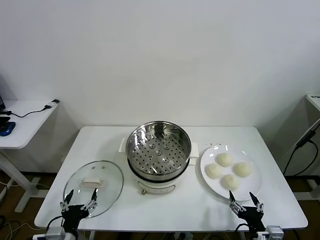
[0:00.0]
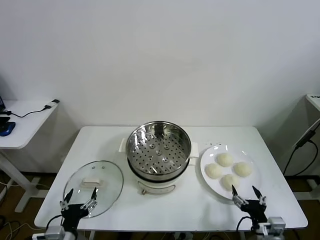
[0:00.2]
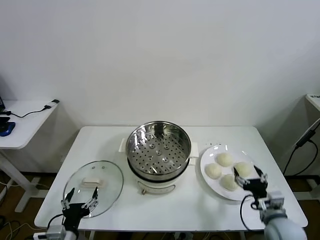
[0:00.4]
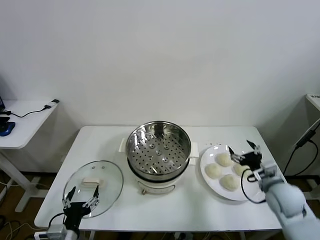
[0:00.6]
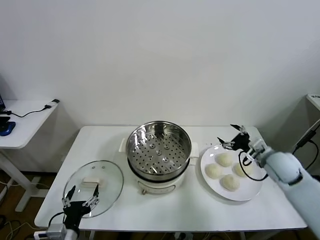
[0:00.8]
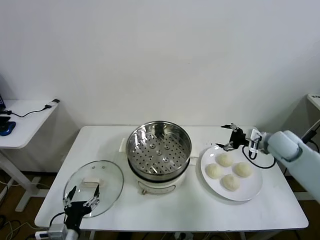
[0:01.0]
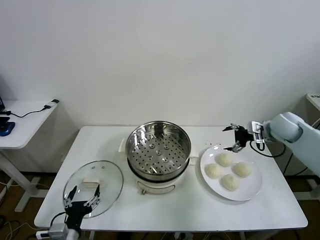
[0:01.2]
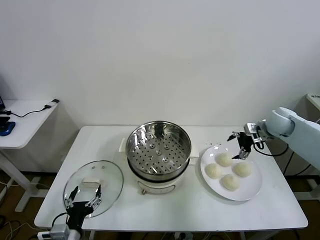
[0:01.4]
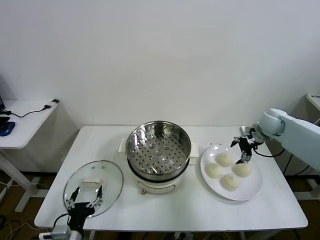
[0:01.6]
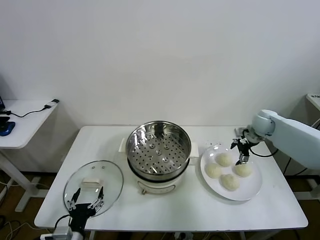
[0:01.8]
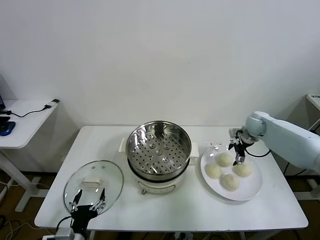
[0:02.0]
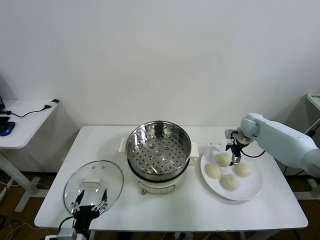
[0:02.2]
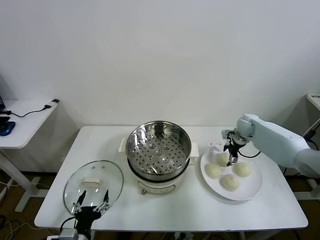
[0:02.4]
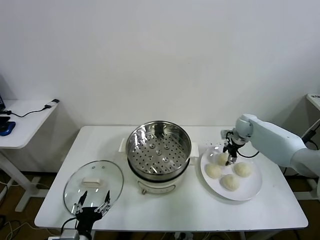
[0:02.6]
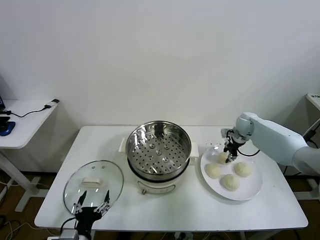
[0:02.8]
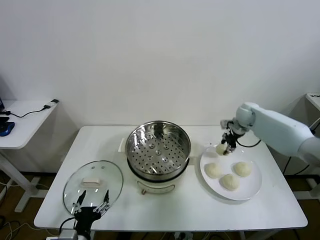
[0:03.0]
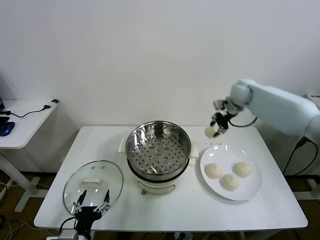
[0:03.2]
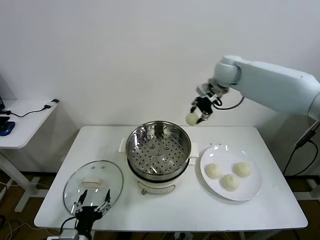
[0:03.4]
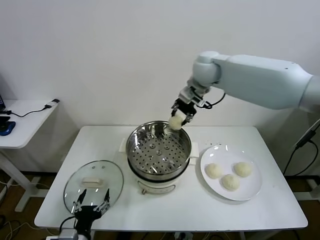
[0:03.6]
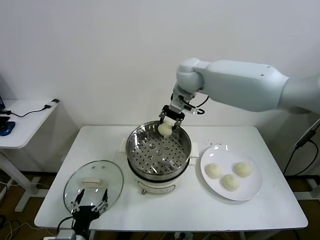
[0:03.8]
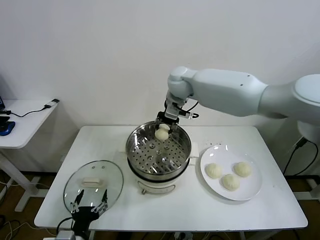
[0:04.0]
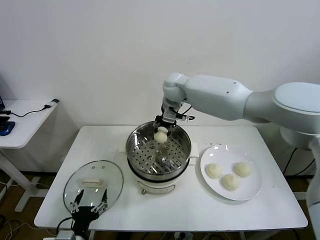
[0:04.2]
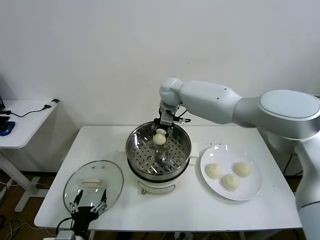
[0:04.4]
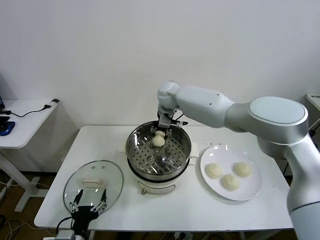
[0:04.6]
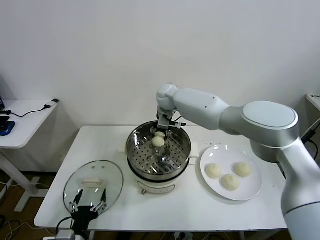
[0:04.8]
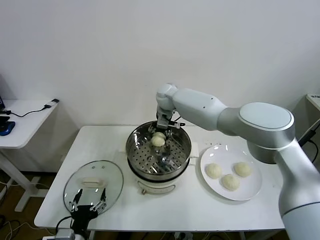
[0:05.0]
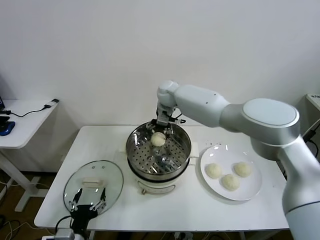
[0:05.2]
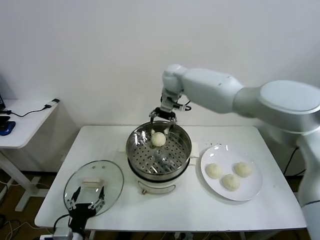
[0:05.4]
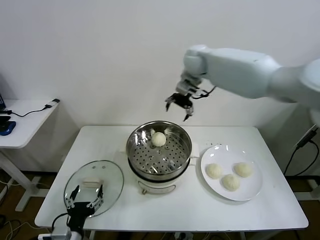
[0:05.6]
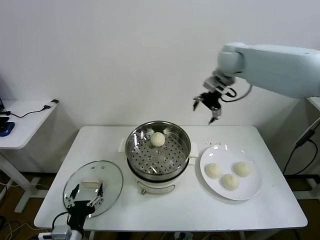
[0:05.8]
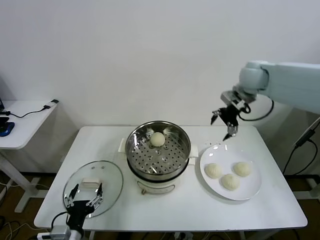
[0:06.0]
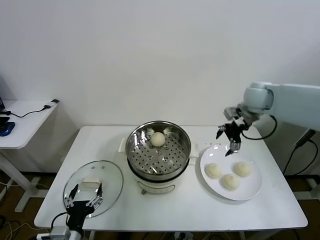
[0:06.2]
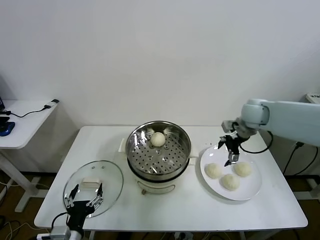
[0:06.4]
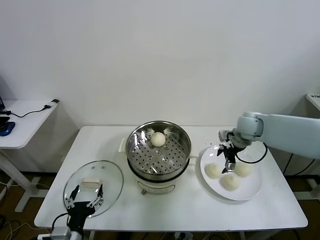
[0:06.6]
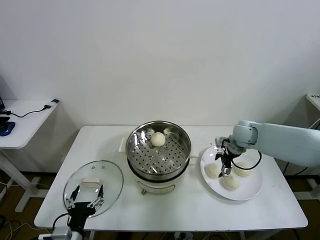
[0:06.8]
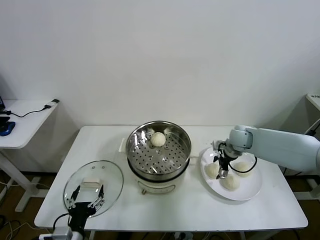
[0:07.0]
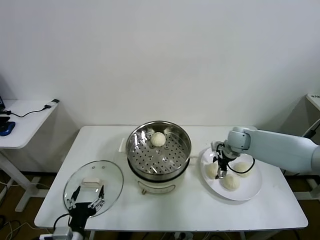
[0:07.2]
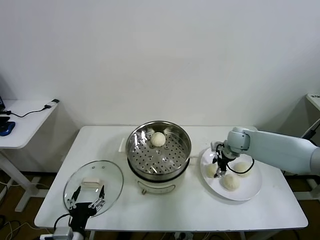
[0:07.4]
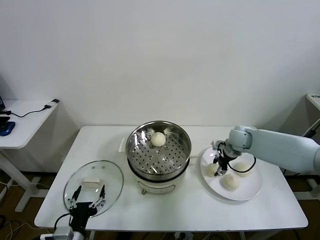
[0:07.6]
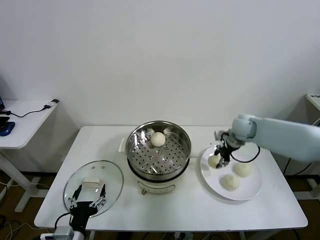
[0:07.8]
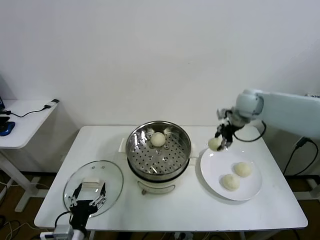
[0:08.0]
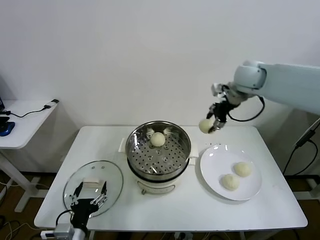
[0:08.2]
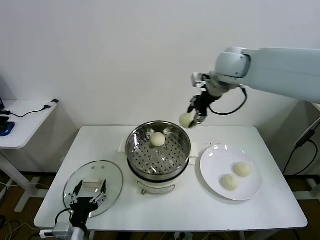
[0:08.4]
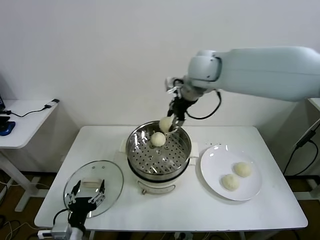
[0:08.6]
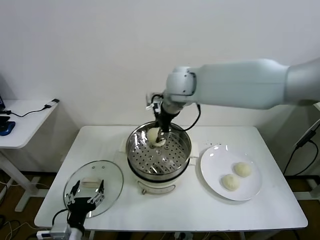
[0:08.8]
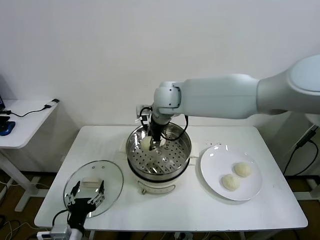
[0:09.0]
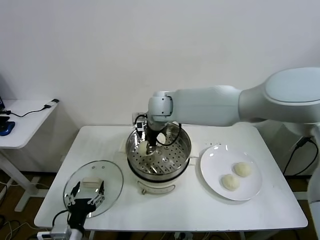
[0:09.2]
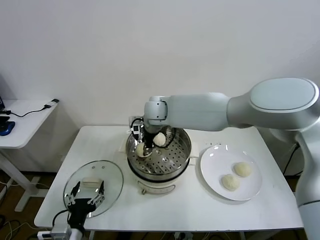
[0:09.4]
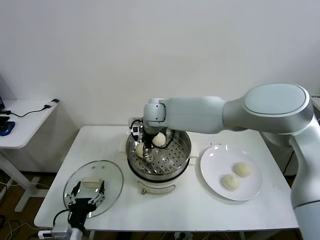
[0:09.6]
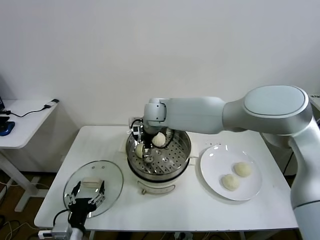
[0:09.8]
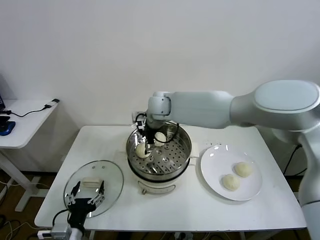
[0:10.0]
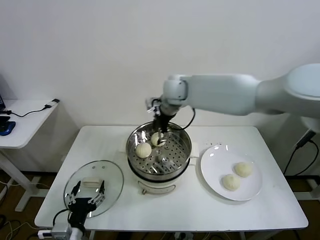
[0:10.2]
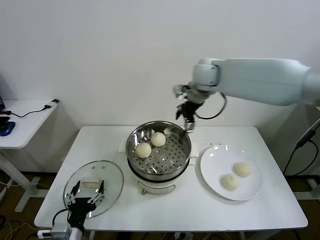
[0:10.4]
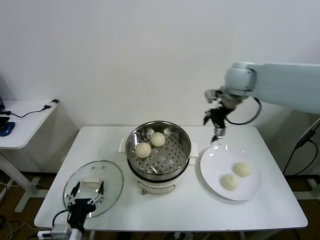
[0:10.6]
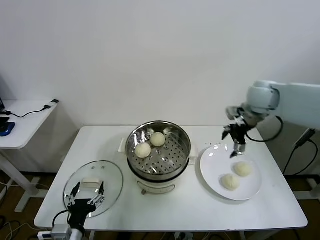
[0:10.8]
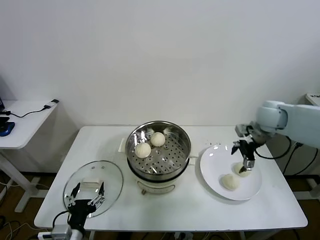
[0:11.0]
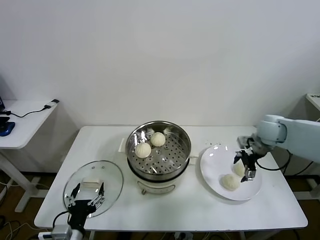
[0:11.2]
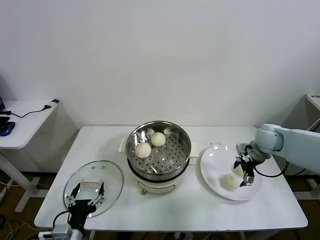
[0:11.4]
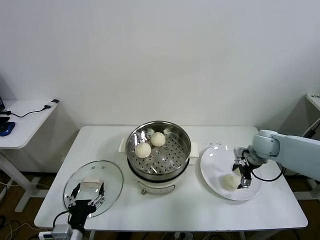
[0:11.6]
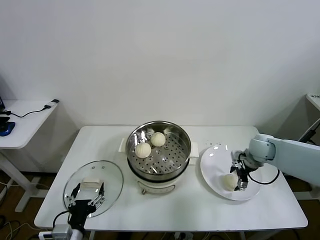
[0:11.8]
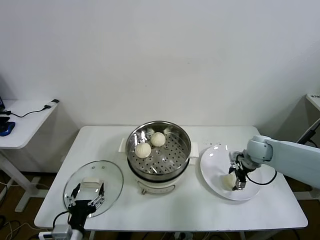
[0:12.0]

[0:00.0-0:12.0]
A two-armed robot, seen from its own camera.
Task of the whole recording: take steamed baozi put them in steamer then cover it.
Step, 0:00.0 to 0:02.6: Grasp the baozi in the plate with right gripper.
Step, 0:02.8 to 0:05.0: Place the baozi on the steamer with right gripper.
Step, 0:05.2 to 0:07.4: Grasp the baozi in the plate with right gripper.
Step, 0:07.6 to 0:09.8: Place the baozi on the steamer with right gripper.
0:01.6 to 0:03.0: The right gripper travels to the left, forward and upward by roughly 10 cm, and closes up.
0:03.0 to 0:04.4: The right gripper is displaced to the left by some 30 cm.
0:04.4 to 0:06.0: The right gripper is displaced to the right by roughly 30 cm, and opens.
0:06.0 to 0:07.6: The right gripper goes some 20 cm downward, and closes up.
0:07.6 to 0:09.0: The right gripper is displaced to the left and upward by roughly 35 cm.
0:09.0 to 0:10.4: The right gripper moves to the right and upward, roughly 20 cm, and opens.
0:10.4 to 0:12.0: The right gripper moves downward and to the right, some 30 cm.

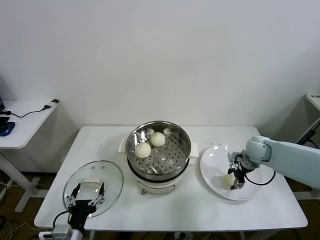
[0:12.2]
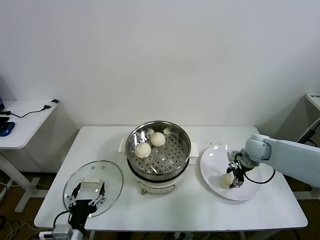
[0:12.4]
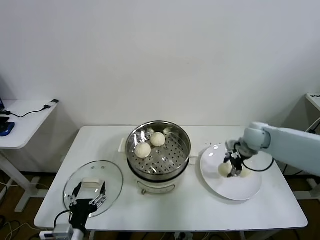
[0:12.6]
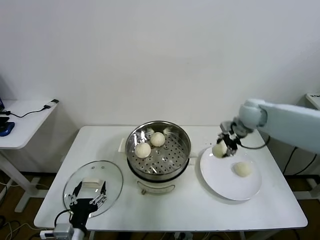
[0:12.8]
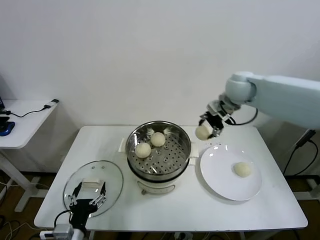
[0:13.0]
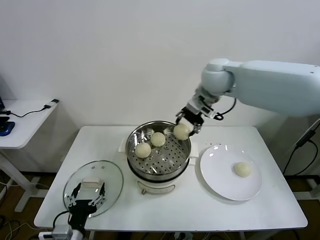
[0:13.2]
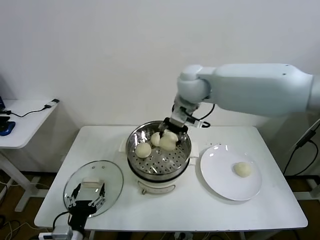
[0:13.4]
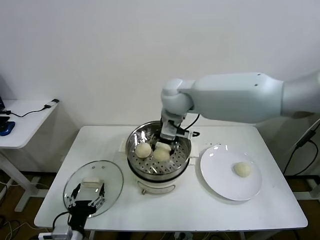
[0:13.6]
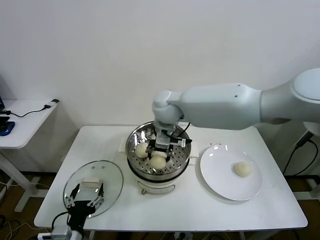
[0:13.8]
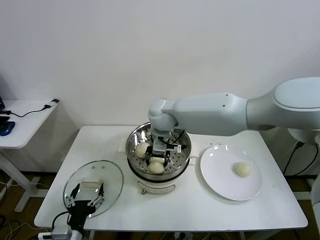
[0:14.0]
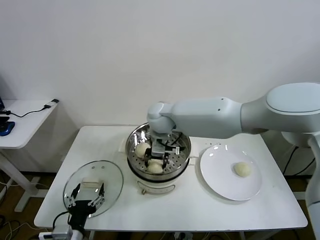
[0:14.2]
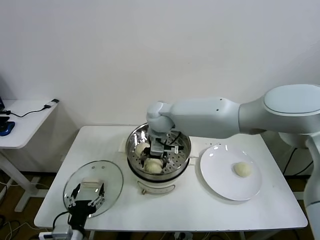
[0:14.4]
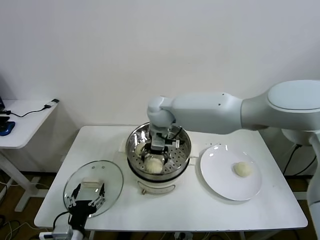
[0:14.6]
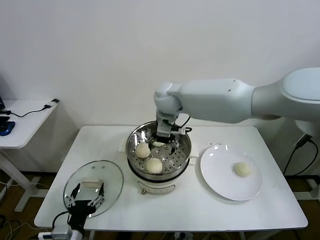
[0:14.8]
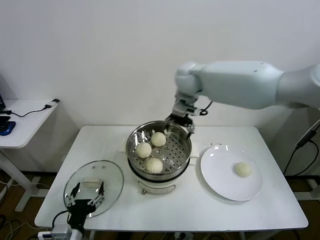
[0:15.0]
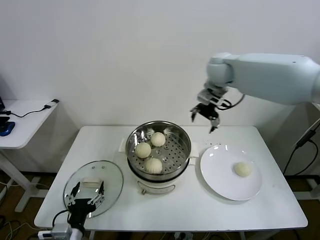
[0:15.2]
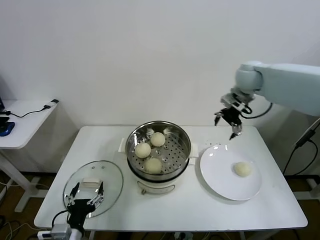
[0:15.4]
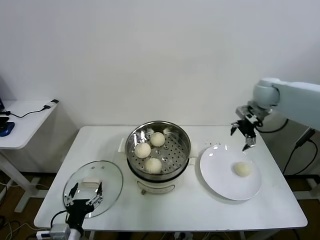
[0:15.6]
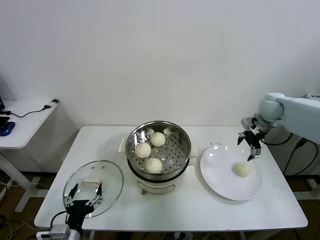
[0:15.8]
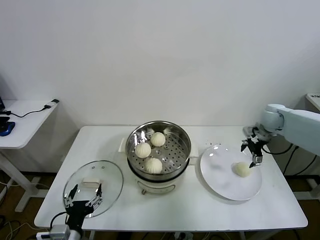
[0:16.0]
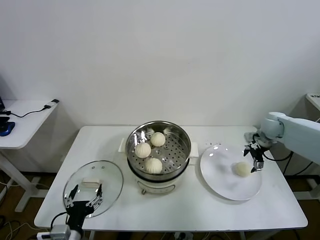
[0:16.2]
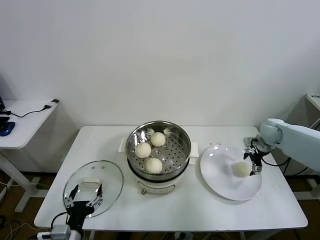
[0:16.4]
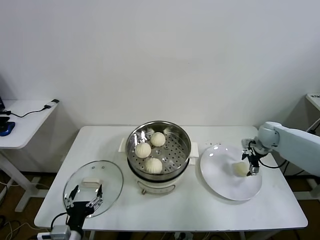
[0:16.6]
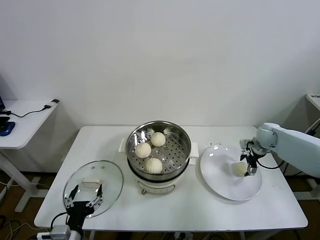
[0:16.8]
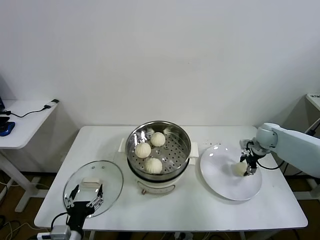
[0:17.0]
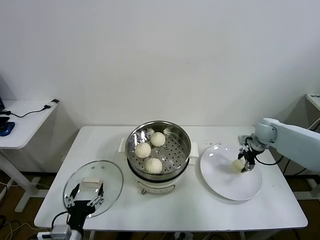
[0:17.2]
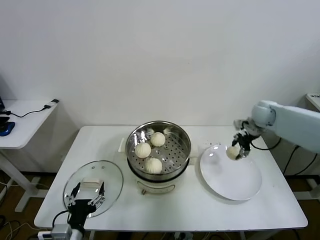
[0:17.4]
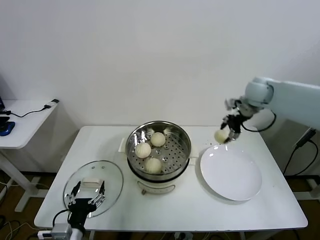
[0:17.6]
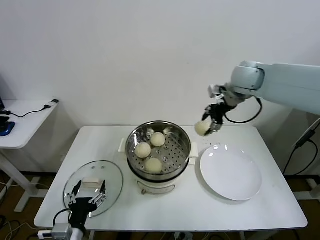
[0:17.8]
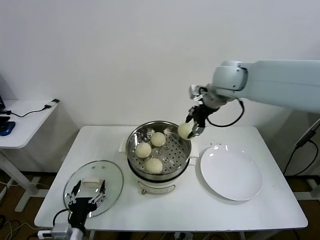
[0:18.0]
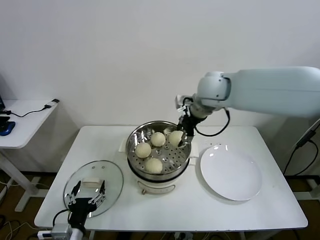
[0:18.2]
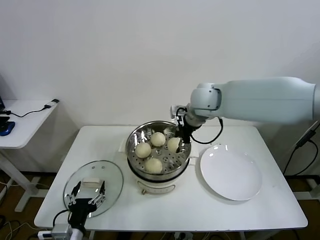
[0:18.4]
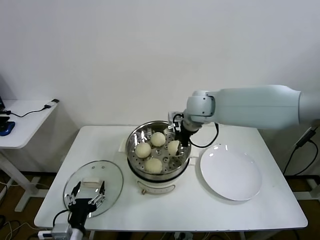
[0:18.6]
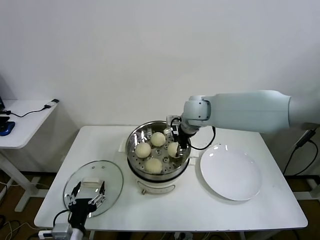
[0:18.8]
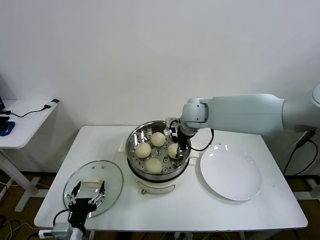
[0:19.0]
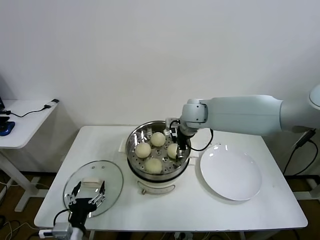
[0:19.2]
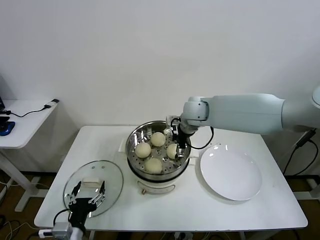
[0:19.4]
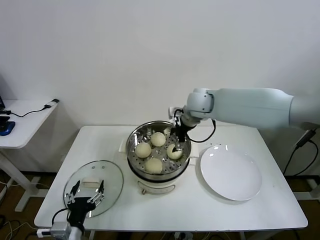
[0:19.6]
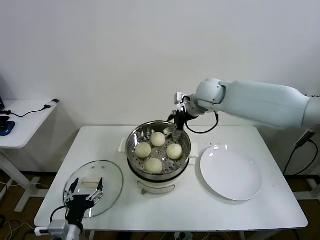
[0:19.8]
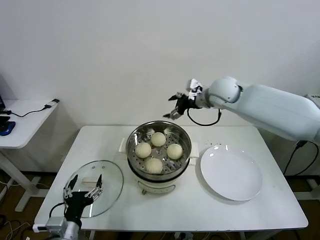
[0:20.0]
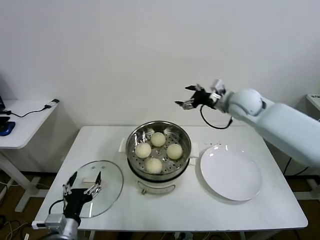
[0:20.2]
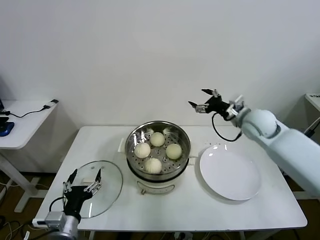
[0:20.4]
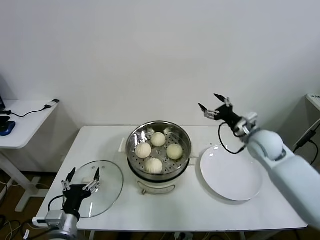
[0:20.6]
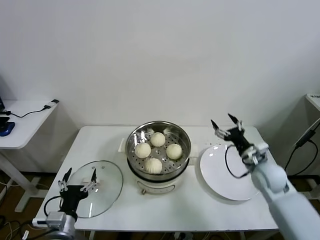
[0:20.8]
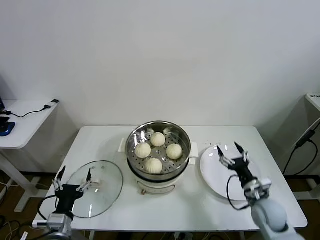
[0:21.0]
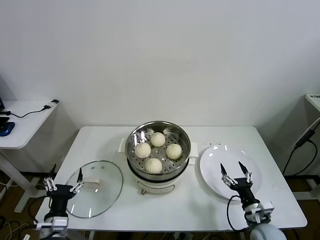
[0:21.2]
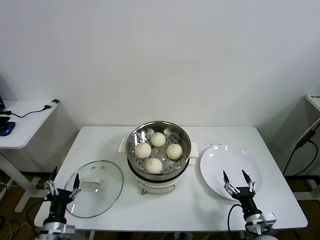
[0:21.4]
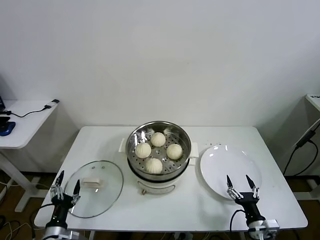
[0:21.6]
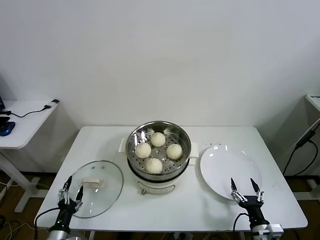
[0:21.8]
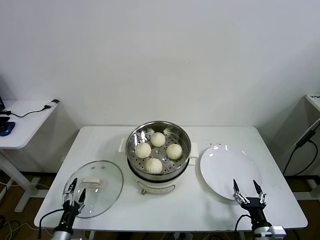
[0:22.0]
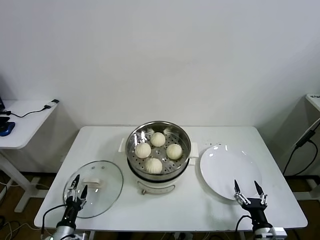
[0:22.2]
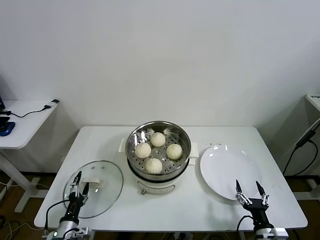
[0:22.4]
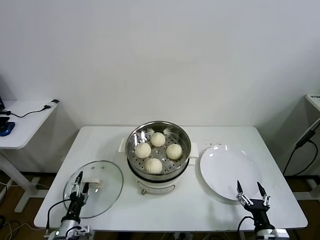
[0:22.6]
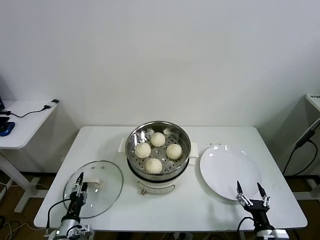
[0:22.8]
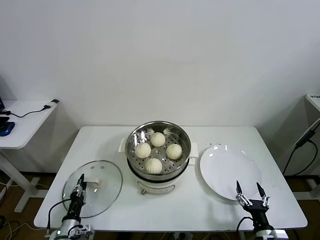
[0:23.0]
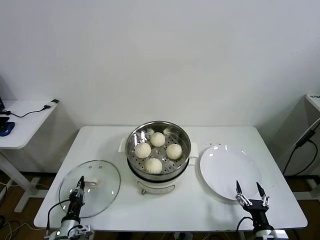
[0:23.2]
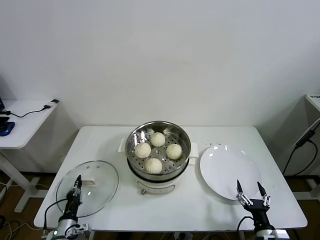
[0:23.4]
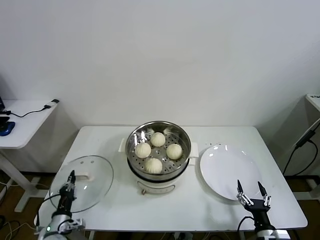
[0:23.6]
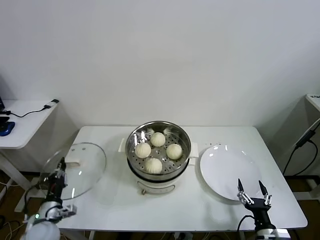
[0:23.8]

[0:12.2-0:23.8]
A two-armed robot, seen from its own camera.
Task of the whole recording: take steamed baozi put them in steamer then cover it.
Step, 0:12.4 to 0:14.4: Place the baozi on the steamer with right gripper.
Step, 0:14.6 to 0:17.0: Grasp the baozi in the plate with right gripper.
Step, 0:17.2 to 0:19.4: Place the baozi on the steamer with right gripper.
Step, 0:19.6 to 0:23.2: Grasp the pot lid with left gripper.
0:12.2 to 0:13.6: The right gripper is displaced to the left and upward by about 40 cm.
0:13.6 to 0:15.0: The right gripper travels to the right and forward by approximately 10 cm, and opens up.
0:15.0 to 0:16.6: The right gripper shifts roughly 40 cm to the right and downward.
0:16.6 to 0:18.0: The right gripper is displaced upward and to the left by about 35 cm, and closes its fingers.
0:18.0 to 0:19.4: The right gripper goes about 15 cm downward and to the left, and opens its fingers.
0:19.4 to 0:21.0: The right gripper moves downward, backward and to the right, some 40 cm.
0:21.0 to 0:22.4: The left gripper heads downward, covering about 15 cm, while the right gripper moves backward and downward, approximately 15 cm.
0:22.4 to 0:23.8: The left gripper heads upward, covering about 5 cm, and closes up.
